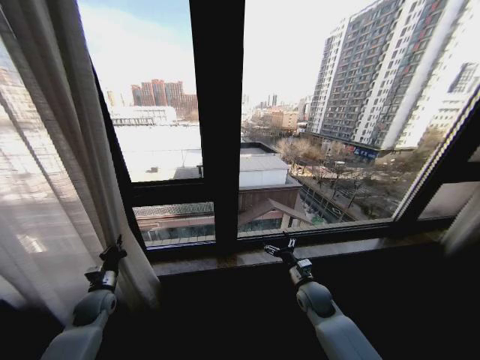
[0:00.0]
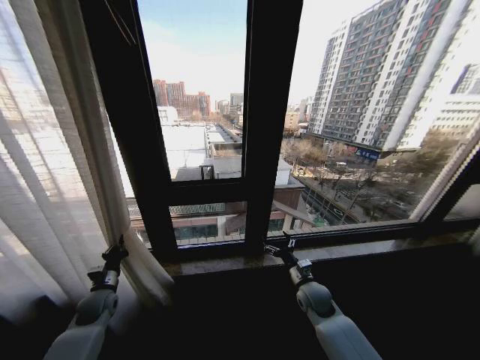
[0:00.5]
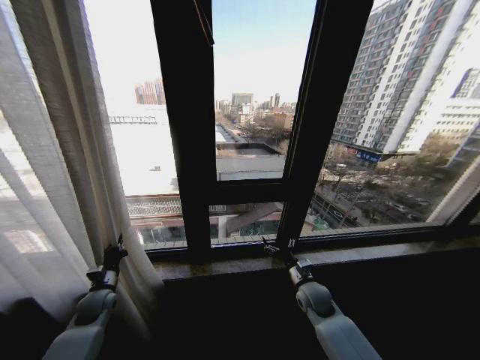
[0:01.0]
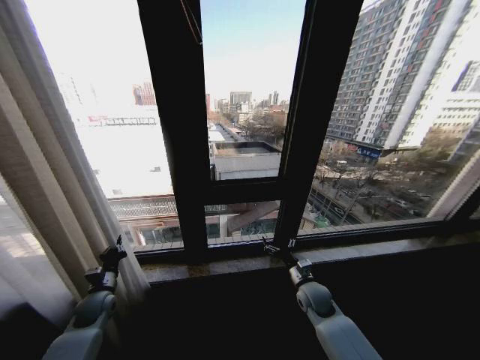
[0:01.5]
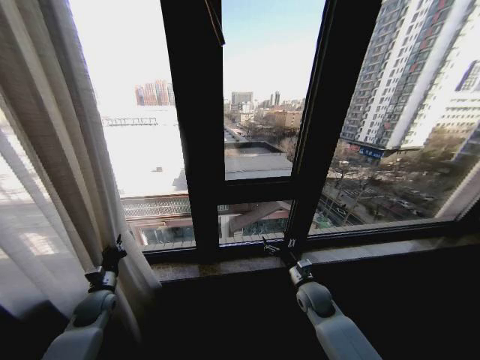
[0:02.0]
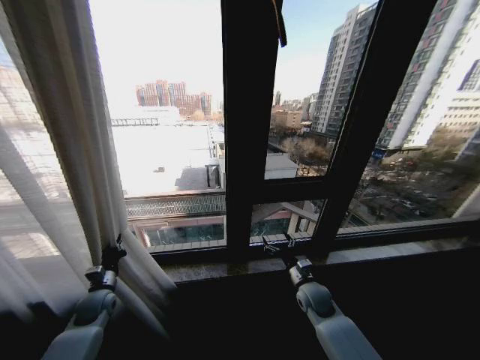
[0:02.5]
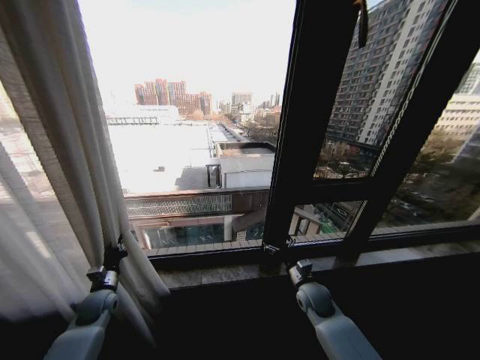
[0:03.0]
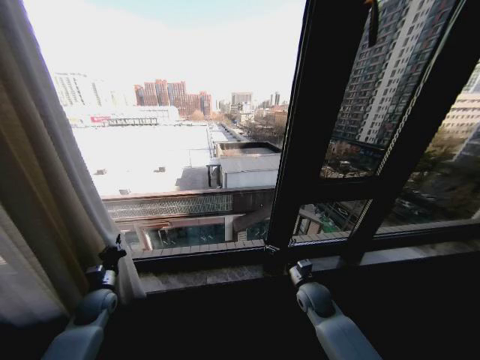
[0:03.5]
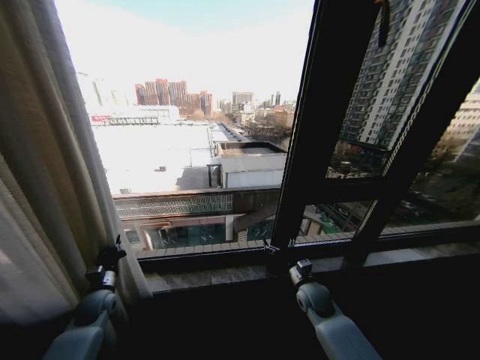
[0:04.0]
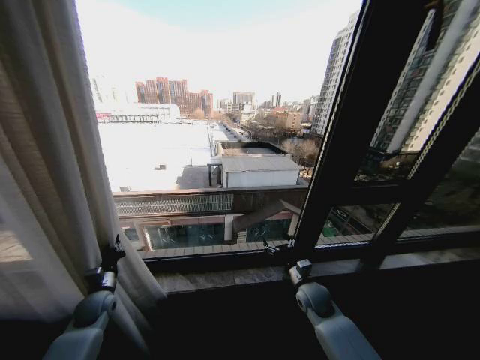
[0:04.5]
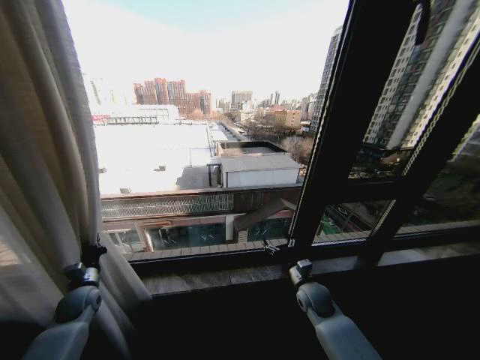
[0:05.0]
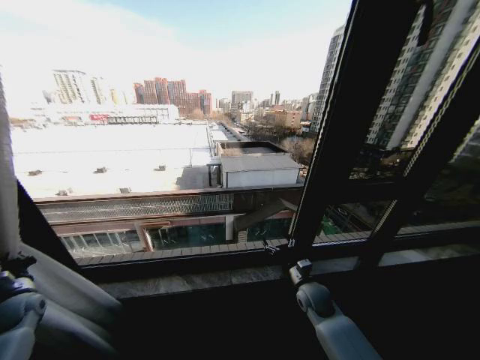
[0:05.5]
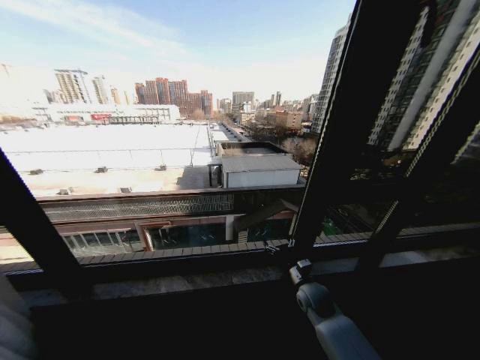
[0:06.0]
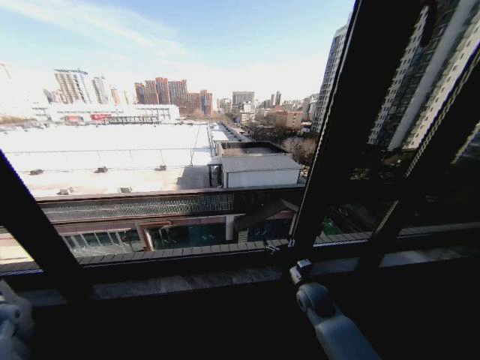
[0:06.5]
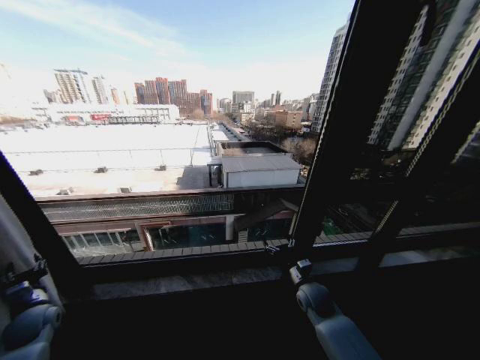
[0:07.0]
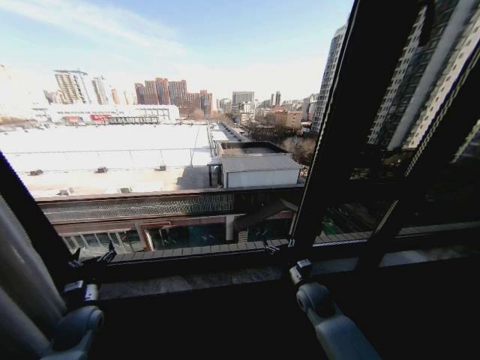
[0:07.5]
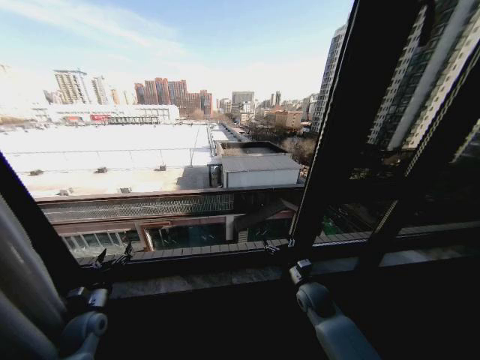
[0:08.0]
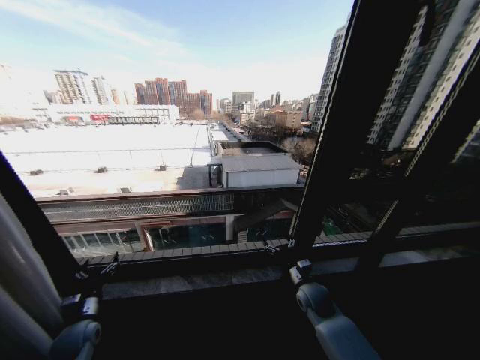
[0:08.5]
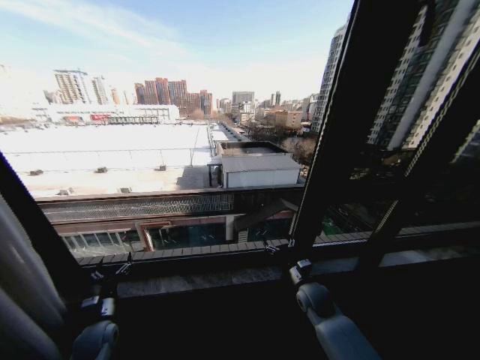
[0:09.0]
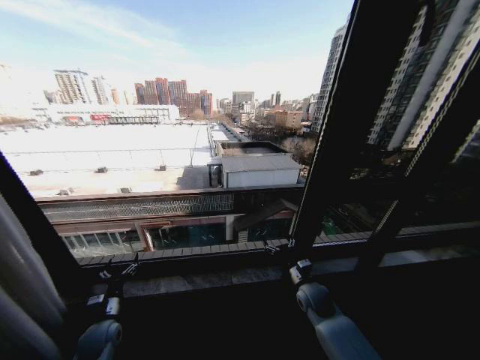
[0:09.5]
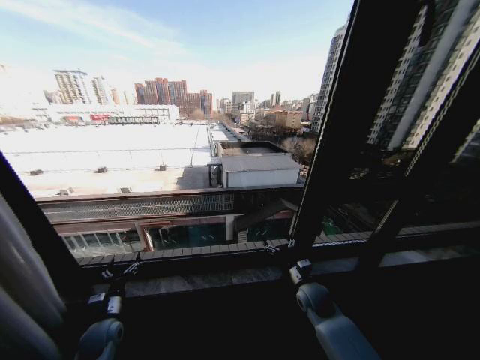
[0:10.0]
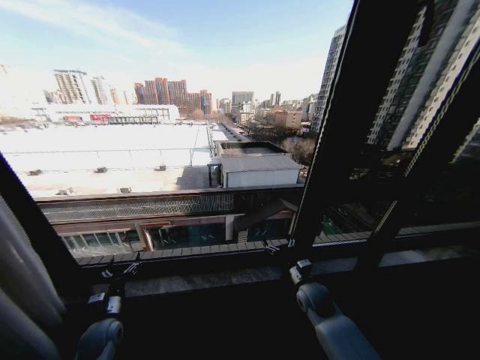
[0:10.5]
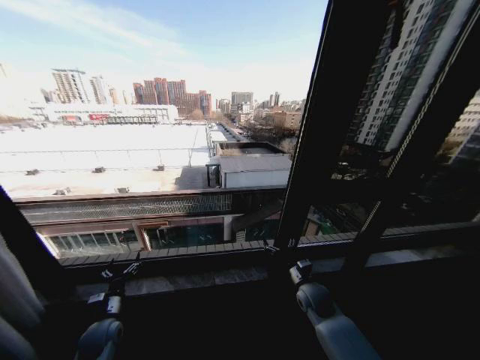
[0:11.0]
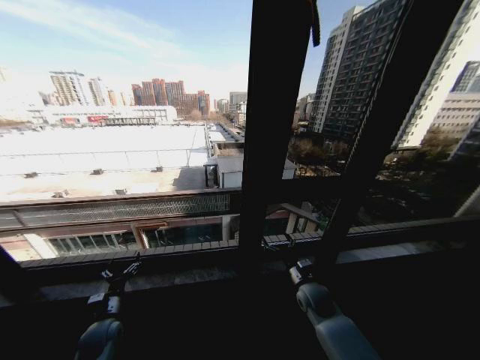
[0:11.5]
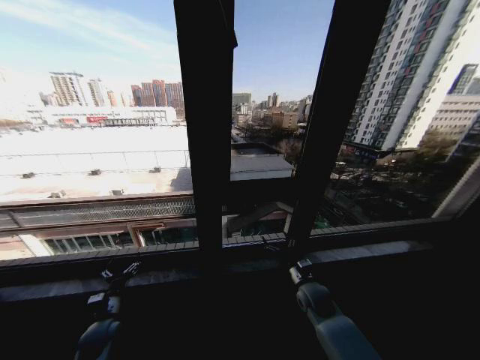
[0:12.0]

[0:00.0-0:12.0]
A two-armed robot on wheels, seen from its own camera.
Task of the whole recording: Open the curtains by pulling them apart, changing their state from closed to fully open.
0:04.0 to 0:06.0: The left gripper goes about 25 cm to the left.
0:06.0 to 0:08.0: The left gripper heads to the right, covering some 25 cm, and opens.
0:08.0 to 0:10.0: The left gripper changes place by approximately 5 cm.
